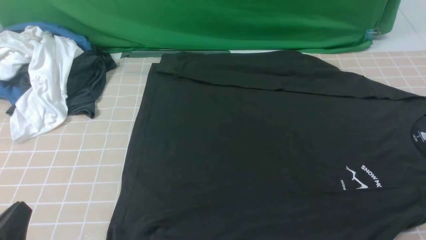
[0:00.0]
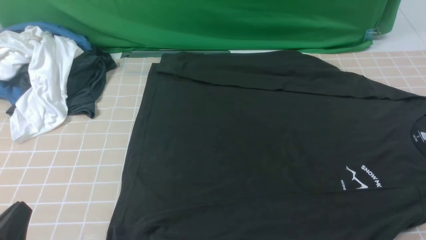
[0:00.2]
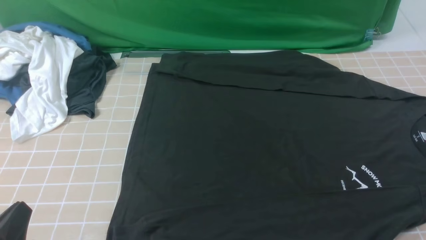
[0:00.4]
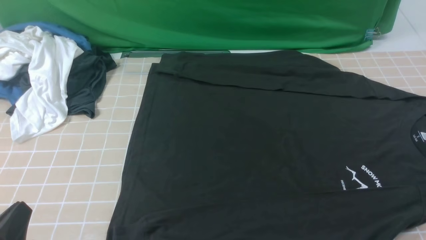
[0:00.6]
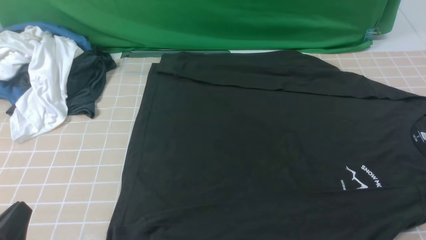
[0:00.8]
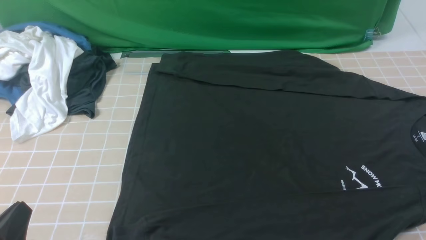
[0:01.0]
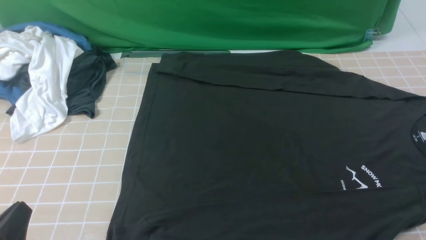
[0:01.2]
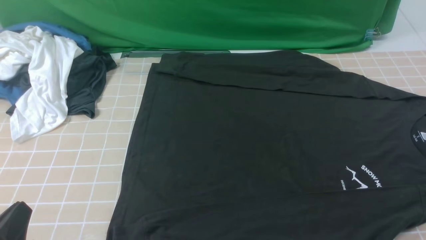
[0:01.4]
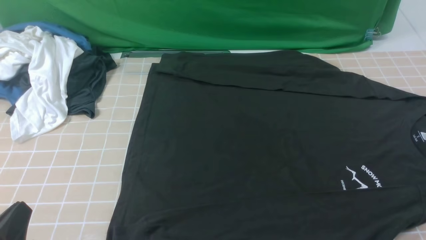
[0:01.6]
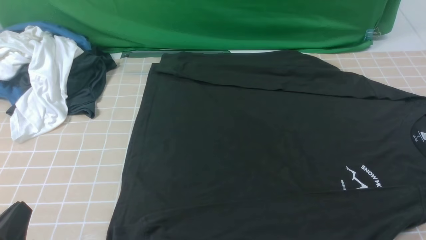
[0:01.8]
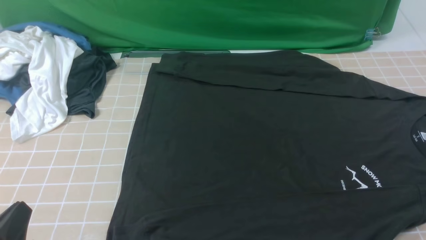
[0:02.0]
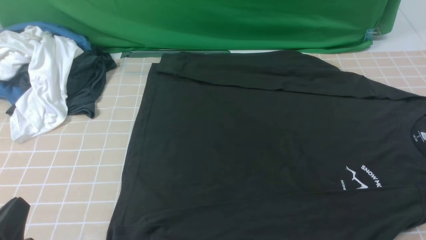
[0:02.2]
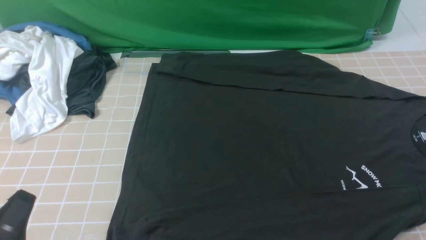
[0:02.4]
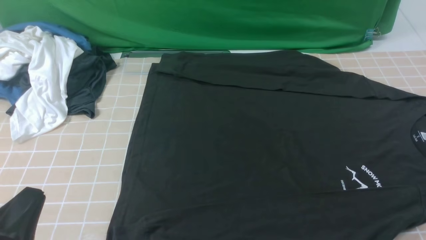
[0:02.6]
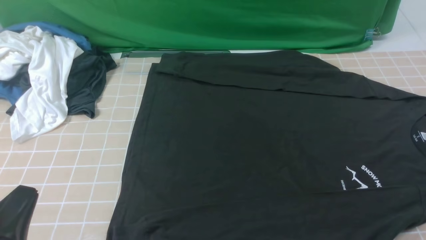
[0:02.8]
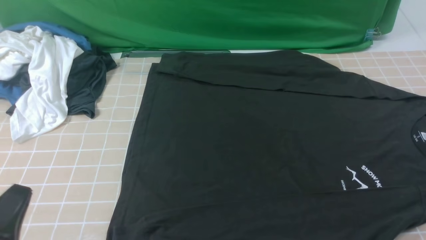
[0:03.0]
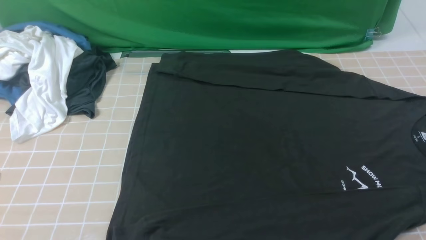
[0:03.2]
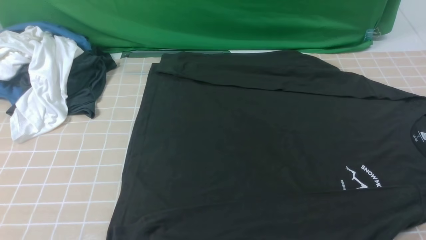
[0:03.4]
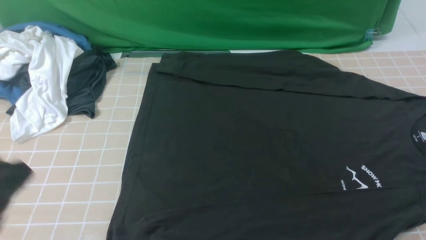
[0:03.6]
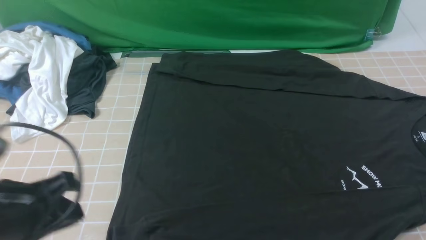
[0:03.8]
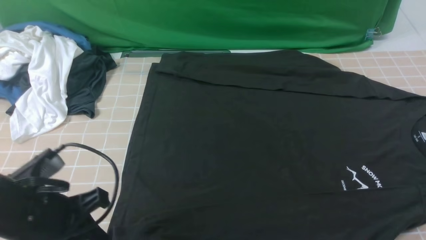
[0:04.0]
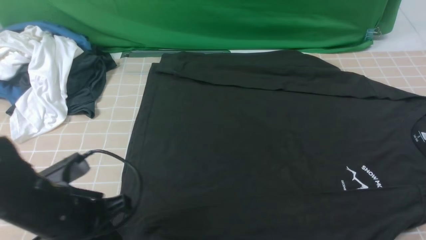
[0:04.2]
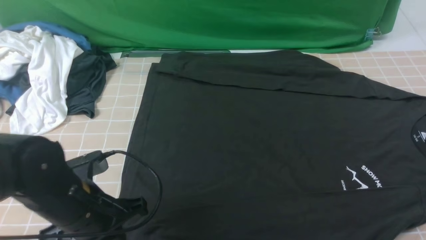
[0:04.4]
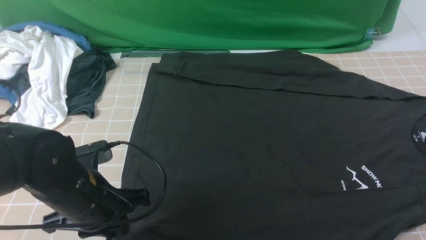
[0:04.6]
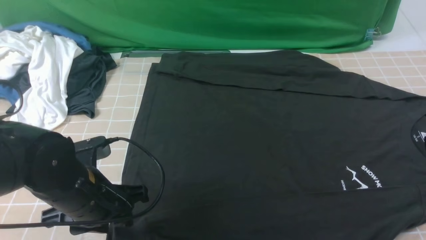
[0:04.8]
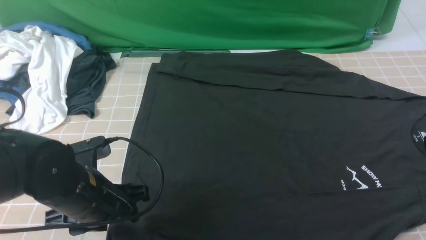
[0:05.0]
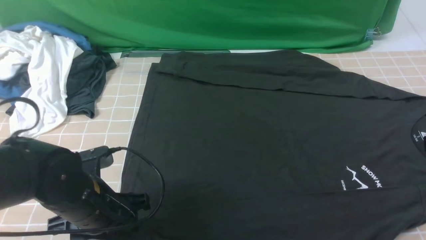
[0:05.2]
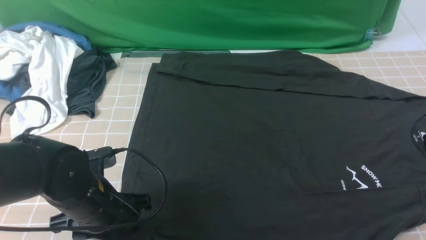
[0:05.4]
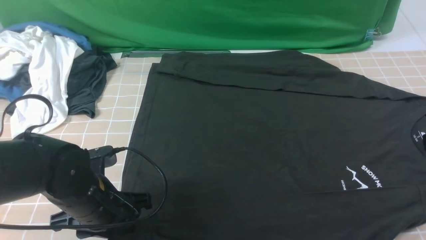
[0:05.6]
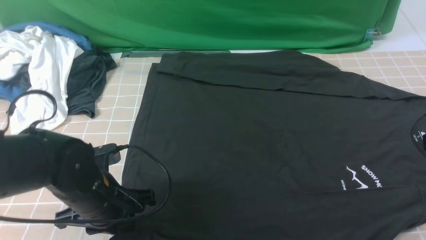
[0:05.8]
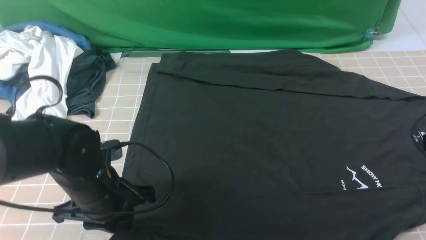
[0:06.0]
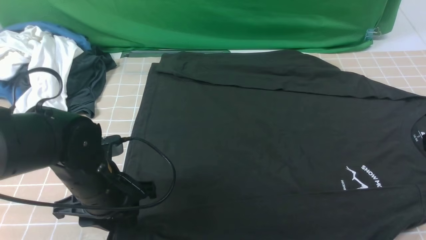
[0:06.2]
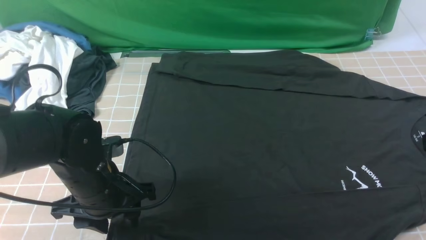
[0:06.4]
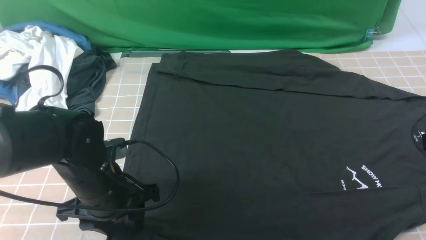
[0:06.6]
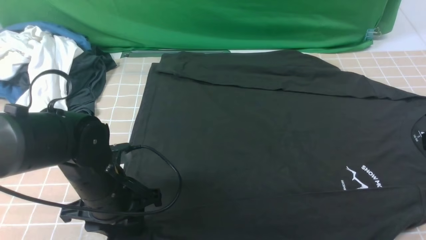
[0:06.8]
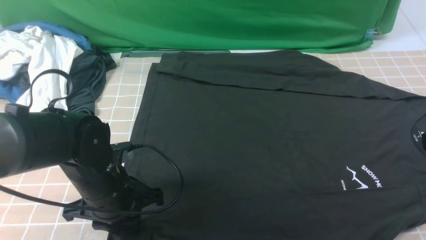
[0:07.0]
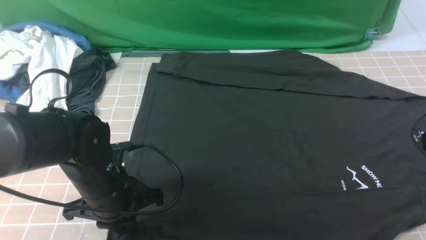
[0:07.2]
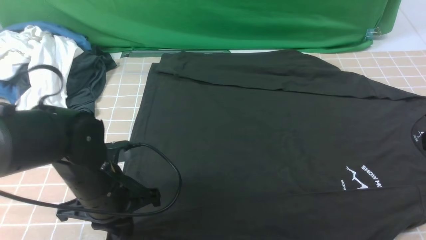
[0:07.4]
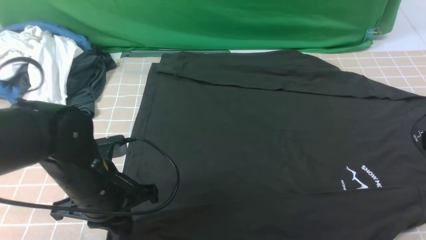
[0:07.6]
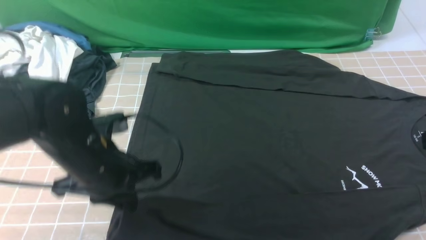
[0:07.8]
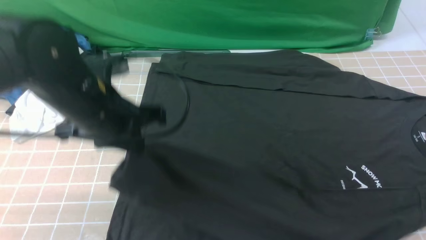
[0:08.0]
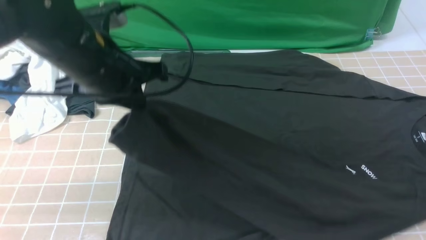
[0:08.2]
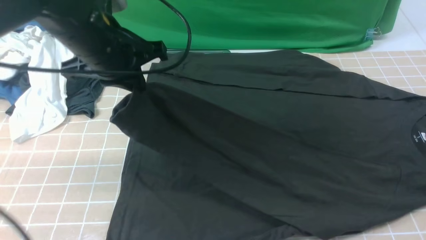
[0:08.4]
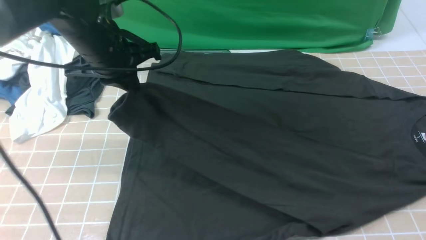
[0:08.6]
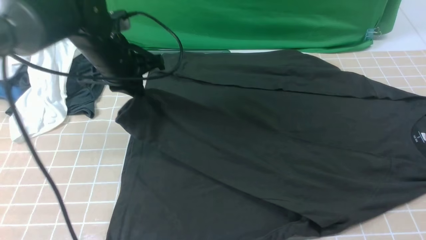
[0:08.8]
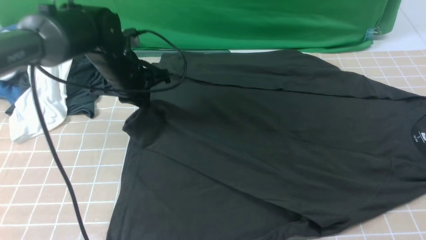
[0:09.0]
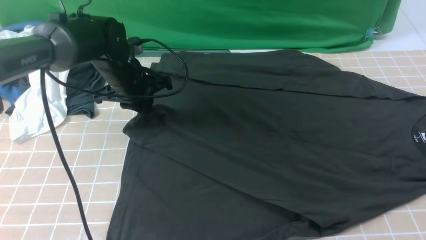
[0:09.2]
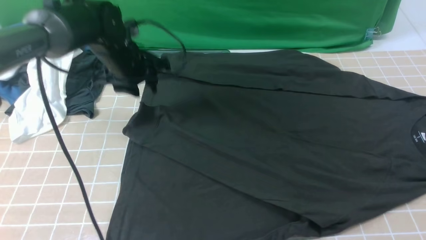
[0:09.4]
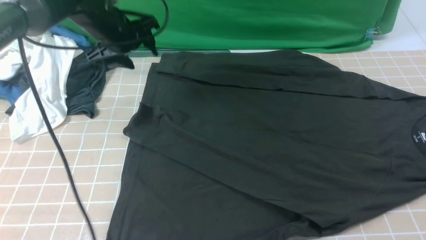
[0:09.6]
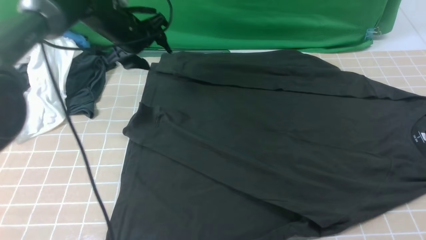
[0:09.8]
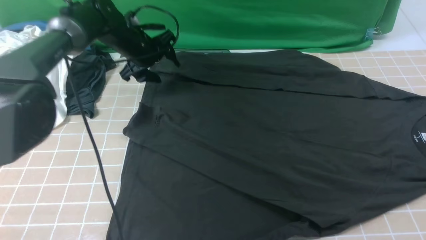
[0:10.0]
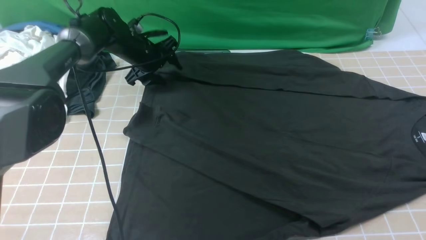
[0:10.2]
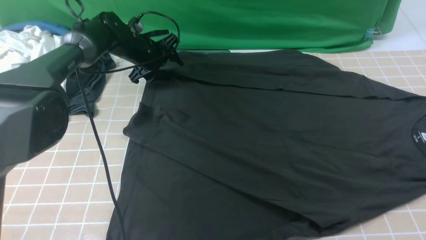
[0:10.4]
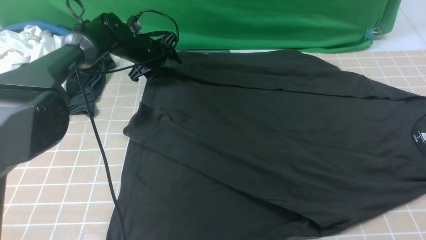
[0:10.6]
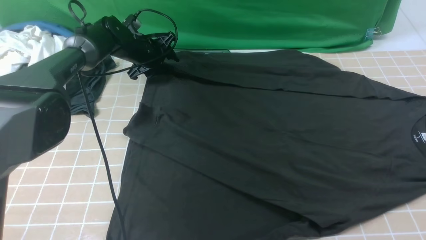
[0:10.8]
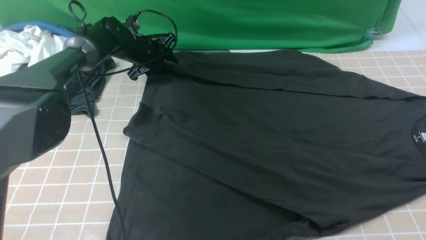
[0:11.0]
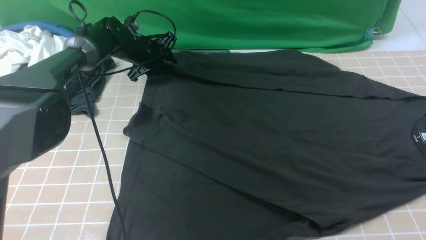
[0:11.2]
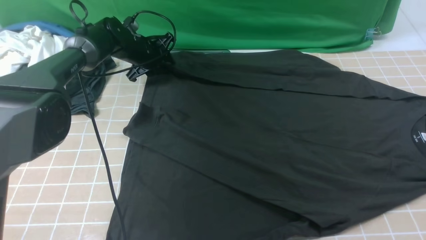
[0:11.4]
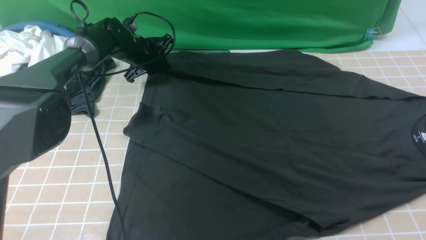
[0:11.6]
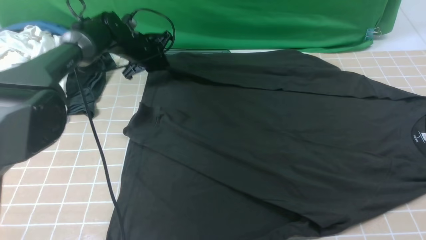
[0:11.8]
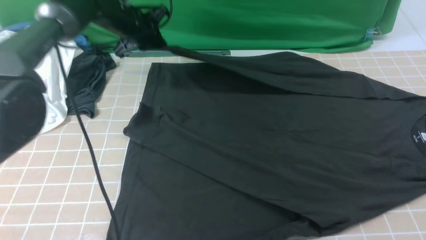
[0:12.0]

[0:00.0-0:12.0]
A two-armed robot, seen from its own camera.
Step, 0:00.0 to 0:07.2: use the left arm to clamp the cuff closest to it.
Step, 0:07.4 to 0:09.2: use the left arm to drag and place the cuff at the centered position on the left edge of the fabric.
Step, 0:09.6 to 0:11.6: use the left arm to clamp the cuff farthest from it.
0:00.0 to 0:01.6: Neither gripper changes place.
0:03.0 to 0:04.4: The left gripper goes about 15 cm forward and to the right.
0:04.4 to 0:06.0: The left gripper opens and closes again.
0:06.0 to 0:07.6: The left gripper closes up.
0:07.6 to 0:09.0: The left gripper shifts approximately 20 cm forward.
0:09.0 to 0:10.4: The left gripper goes some 15 cm forward and downward, and opens its fingers.
0:10.4 to 0:12.0: The left gripper moves upward, about 10 cm, and closes.

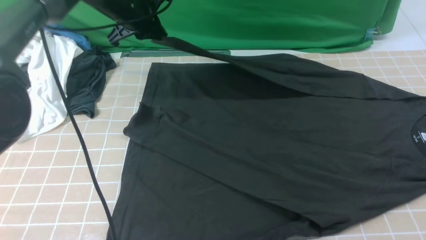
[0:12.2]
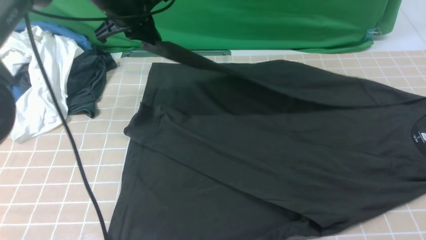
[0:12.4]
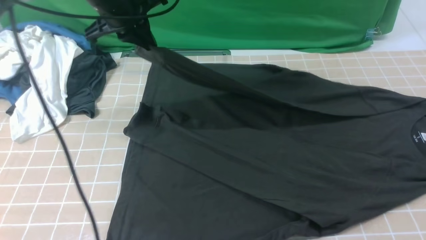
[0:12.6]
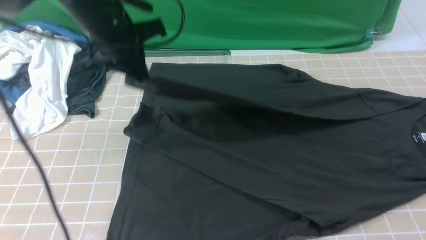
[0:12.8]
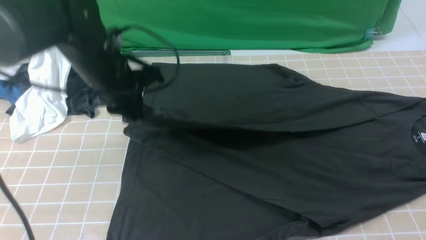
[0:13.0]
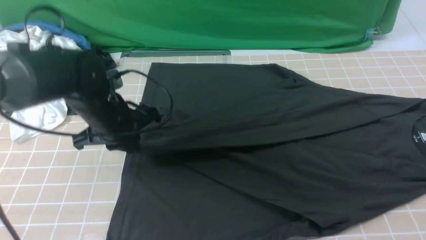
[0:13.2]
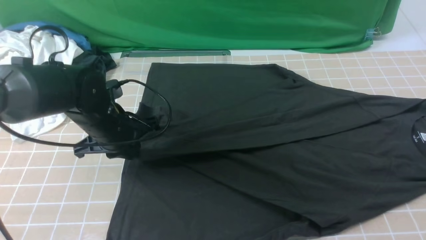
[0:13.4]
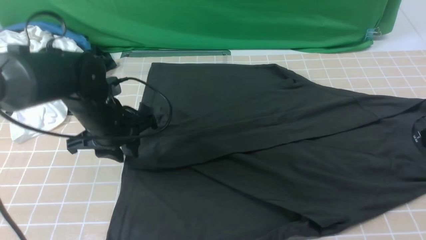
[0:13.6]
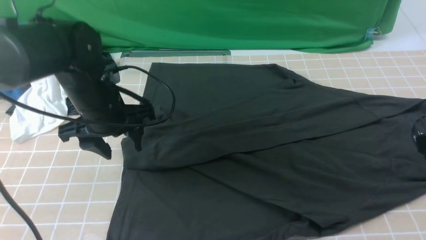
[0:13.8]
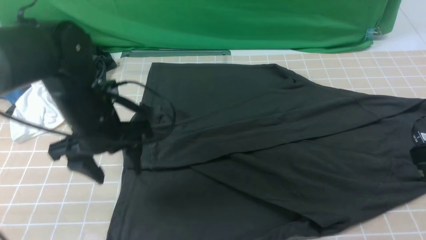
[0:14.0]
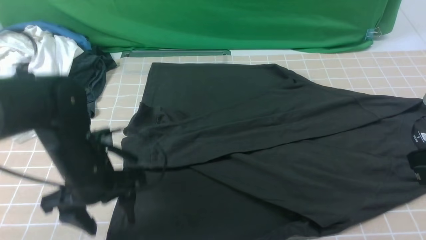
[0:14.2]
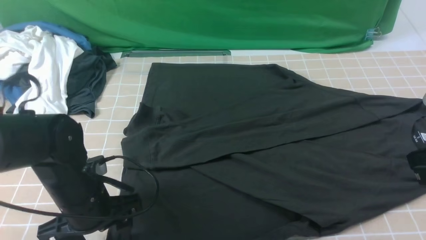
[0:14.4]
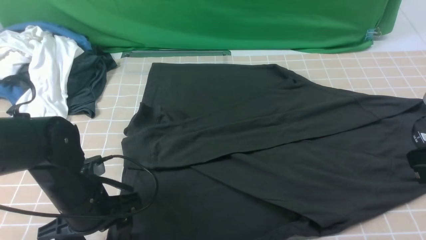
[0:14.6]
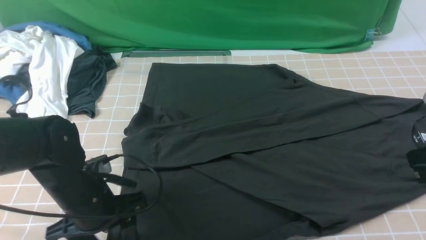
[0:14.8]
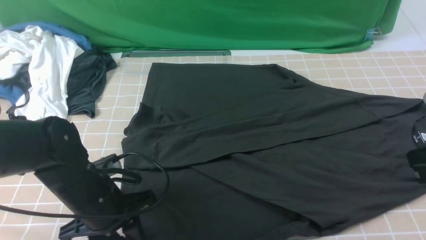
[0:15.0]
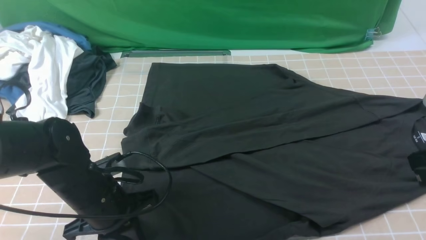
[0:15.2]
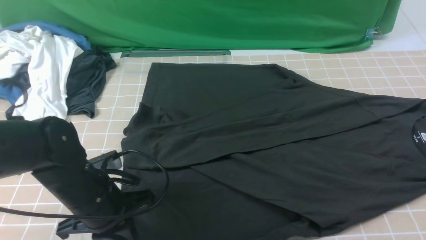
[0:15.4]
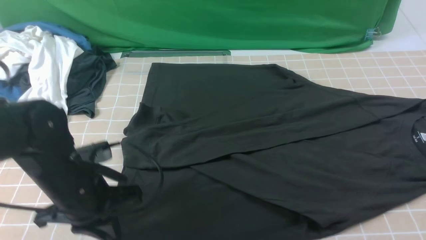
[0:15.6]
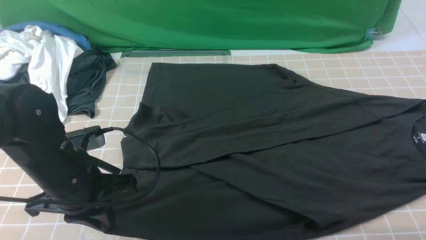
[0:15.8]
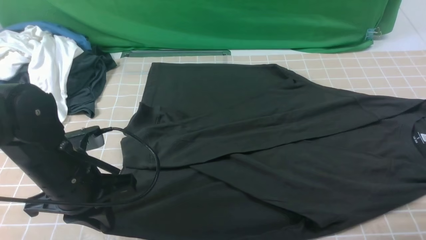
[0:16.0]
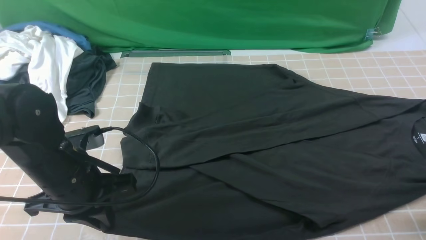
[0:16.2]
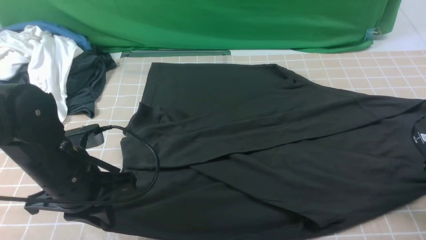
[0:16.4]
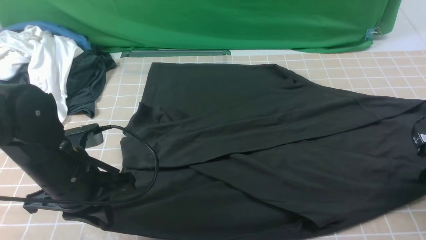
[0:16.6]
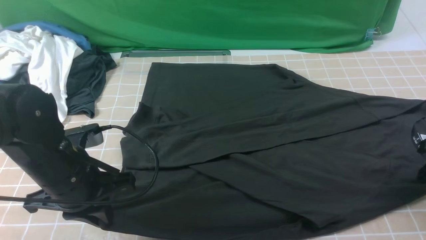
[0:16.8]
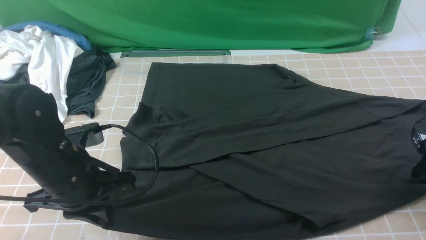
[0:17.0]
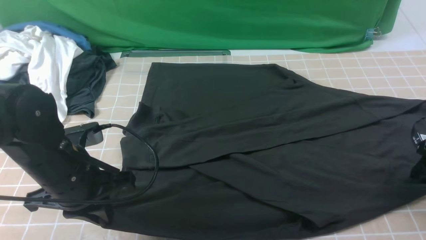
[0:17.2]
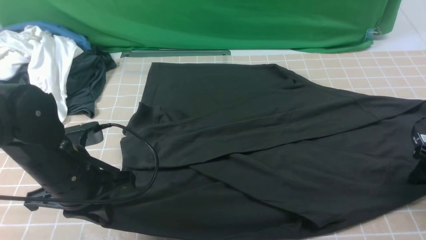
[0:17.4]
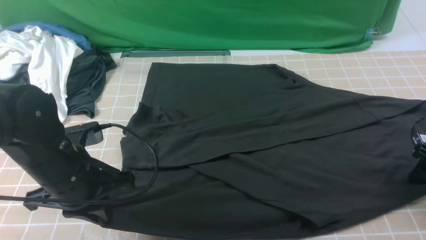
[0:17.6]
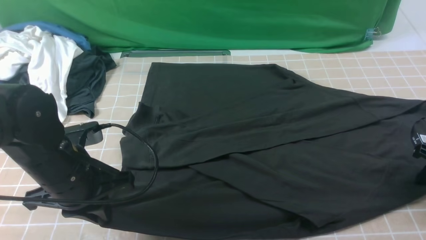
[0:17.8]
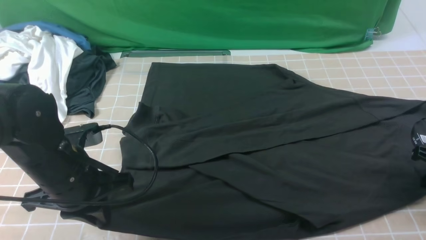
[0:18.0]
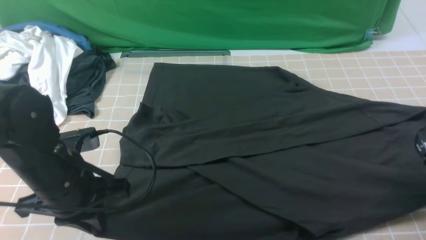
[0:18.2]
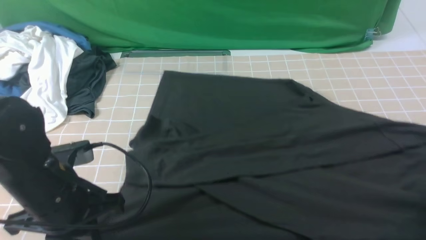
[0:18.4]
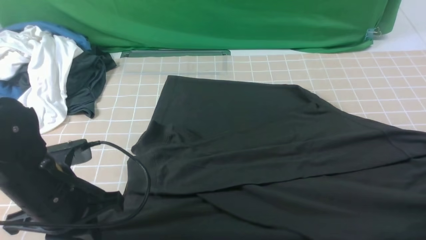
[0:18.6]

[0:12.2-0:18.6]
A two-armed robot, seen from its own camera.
Step, 0:12.2 to 0:13.6: use the left arm to drag and drop the cuff onto the cuff closest to the left arm.
Step, 0:13.8 to 0:17.8: use both arms simultaneously to clamp the lower edge of the clothing fabric.
0:12.2 to 0:13.8: The left gripper moves backward, approximately 20 cm, and opens.
0:13.8 to 0:15.4: The left gripper shifts approximately 10 cm backward and downward, and closes up.
0:15.4 to 0:17.0: The right gripper is displaced downward, forward and to the right by about 15 cm, and opens.
0:17.0 to 0:18.6: The right gripper moves backward, about 5 cm, and closes.
